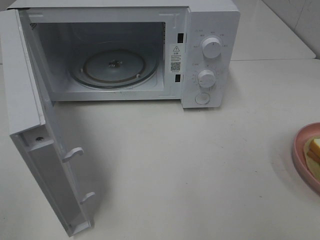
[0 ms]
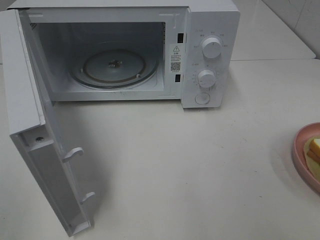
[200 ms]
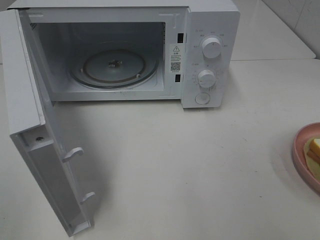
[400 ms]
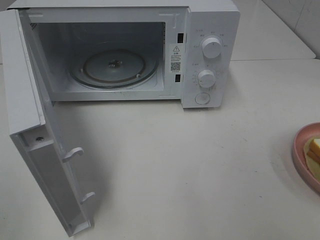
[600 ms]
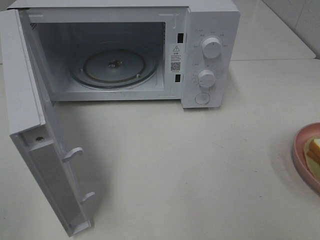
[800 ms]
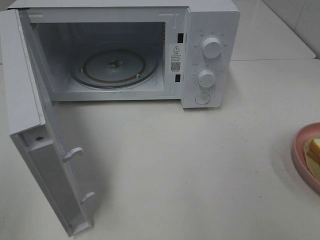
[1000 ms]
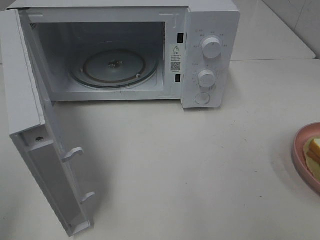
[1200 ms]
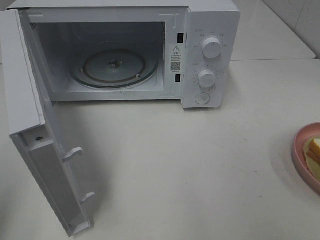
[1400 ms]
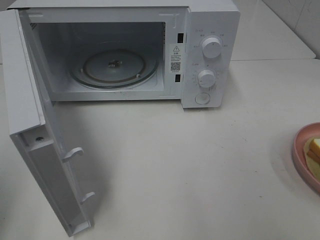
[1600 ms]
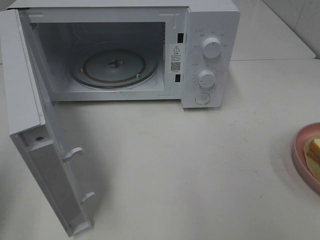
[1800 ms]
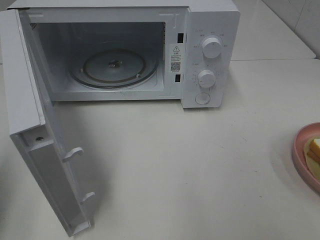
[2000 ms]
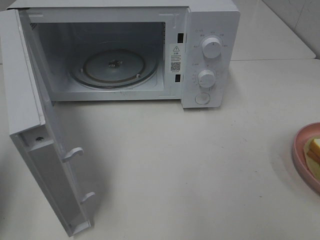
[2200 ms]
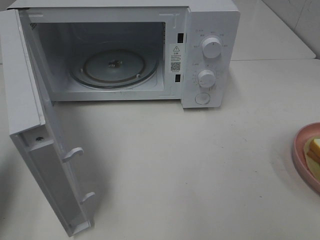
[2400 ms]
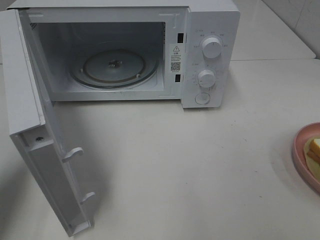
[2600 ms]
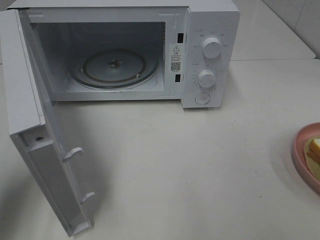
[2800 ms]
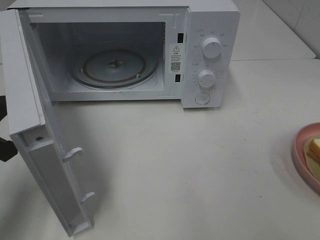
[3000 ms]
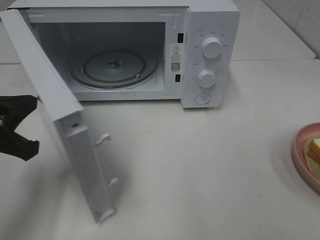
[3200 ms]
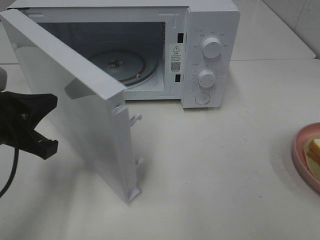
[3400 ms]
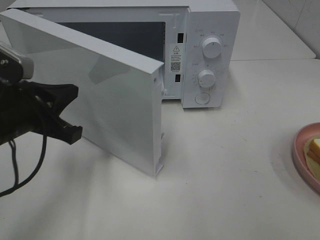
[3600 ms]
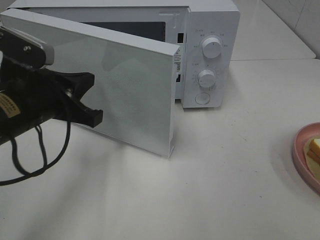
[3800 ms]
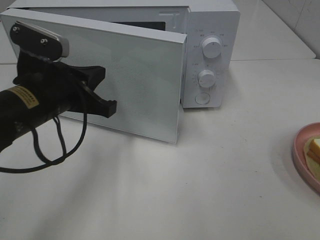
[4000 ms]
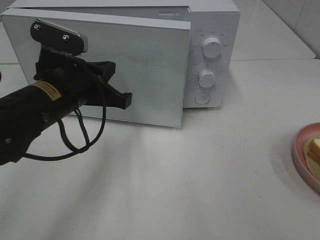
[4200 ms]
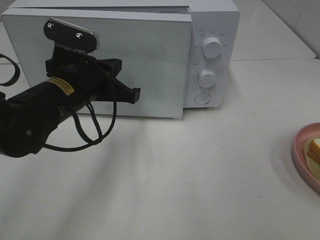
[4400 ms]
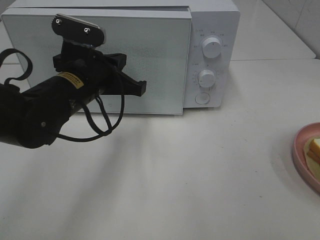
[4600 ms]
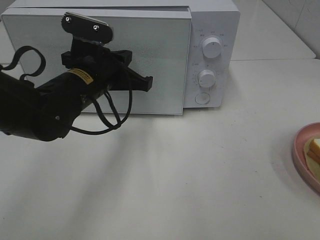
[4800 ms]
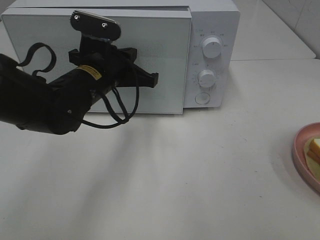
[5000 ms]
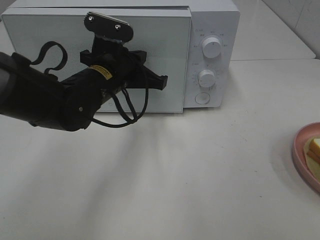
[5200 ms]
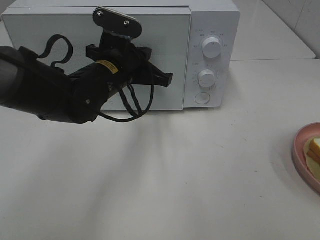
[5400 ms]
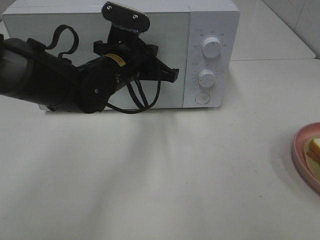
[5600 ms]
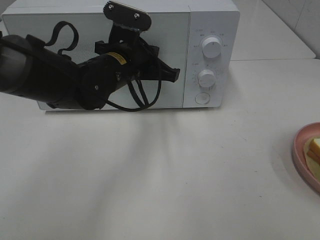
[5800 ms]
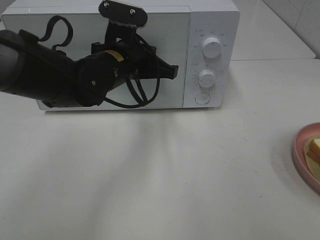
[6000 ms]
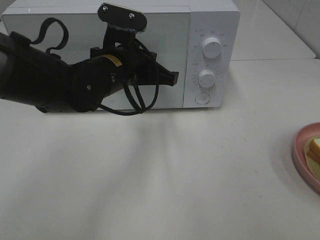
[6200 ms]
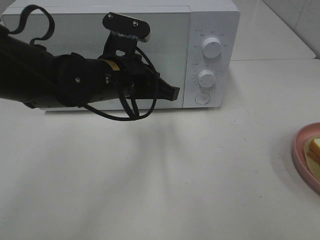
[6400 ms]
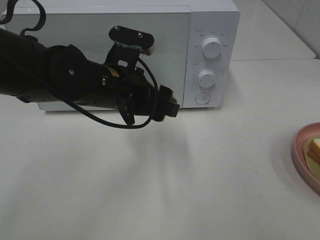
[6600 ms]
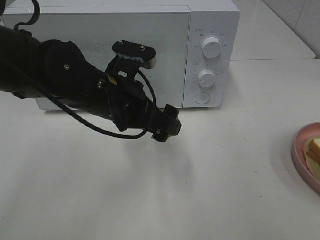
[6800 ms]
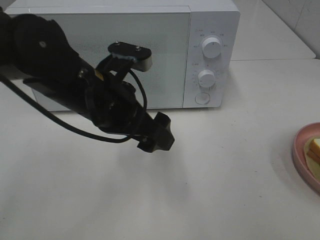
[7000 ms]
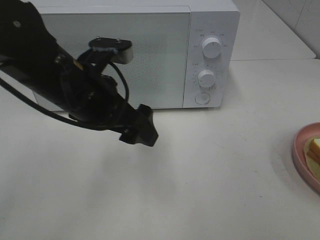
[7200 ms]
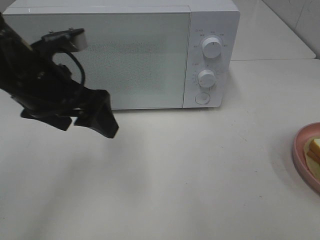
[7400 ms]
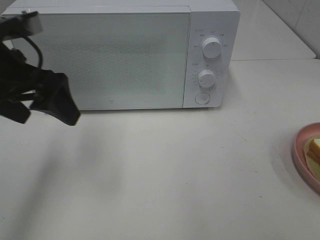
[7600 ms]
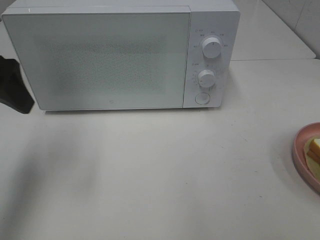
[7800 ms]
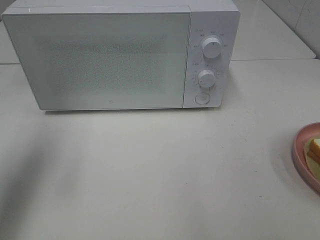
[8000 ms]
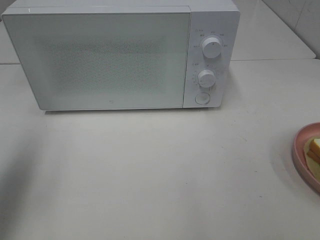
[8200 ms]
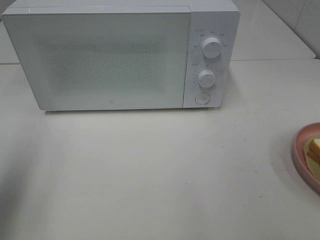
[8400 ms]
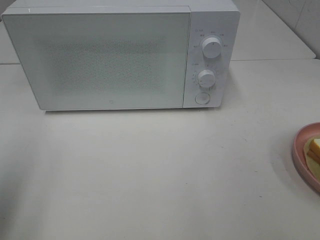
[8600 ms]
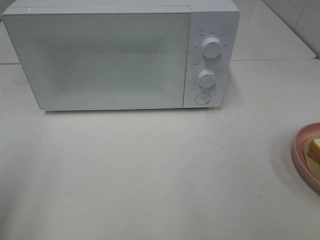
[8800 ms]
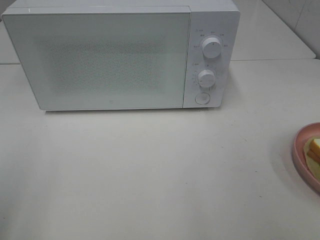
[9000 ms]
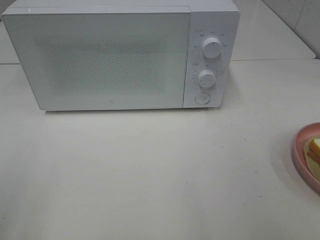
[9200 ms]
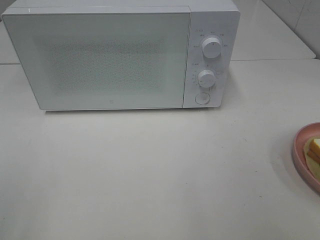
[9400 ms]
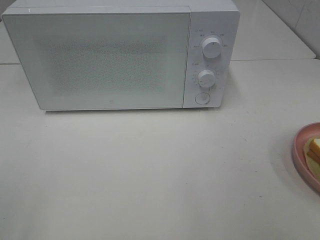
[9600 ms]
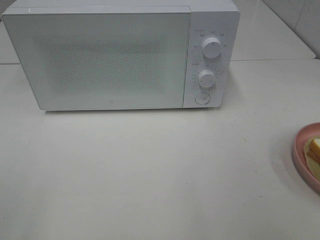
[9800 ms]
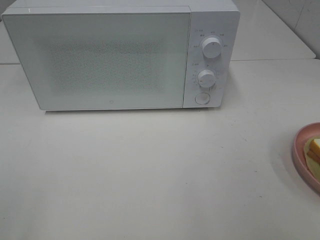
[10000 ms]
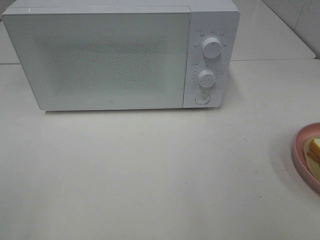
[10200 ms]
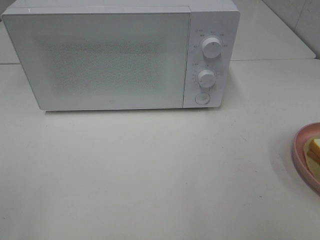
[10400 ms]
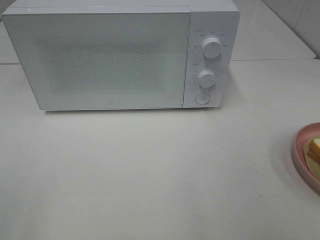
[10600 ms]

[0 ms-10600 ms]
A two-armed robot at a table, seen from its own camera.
Task of the whole recording: Heat Sandwich.
Step, 0 ms to 6600 ms: Left hand: close the microwave door.
1600 ms to 3000 ms: The left gripper shifts approximately 15 cm forward, downward and to the right.
3000 ms to 4600 ms: The left gripper is displaced to the right and forward by about 20 cm.
4600 ms to 6000 ms: The left gripper moves to the right, roughly 5 cm.
6000 ms to 7600 ms: The left gripper moves to the left, upward and backward, roughly 20 cm, and opens.
7600 ms to 9000 ms: The left gripper heads backward and to the left, covering about 20 cm.

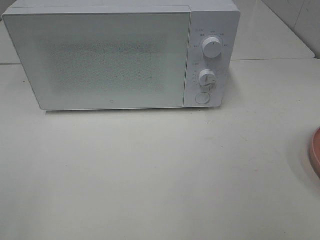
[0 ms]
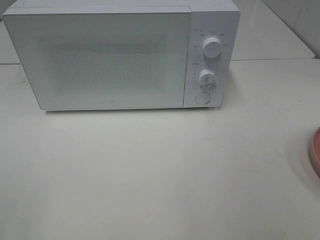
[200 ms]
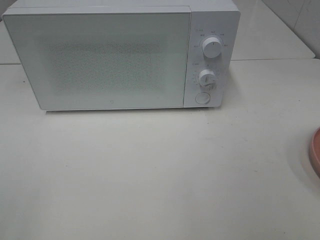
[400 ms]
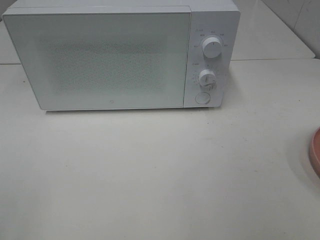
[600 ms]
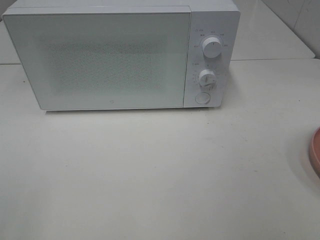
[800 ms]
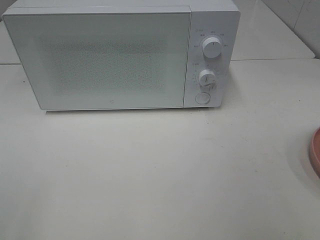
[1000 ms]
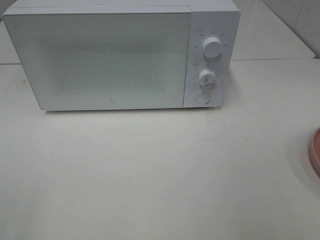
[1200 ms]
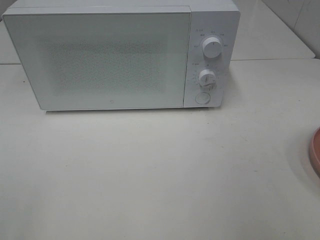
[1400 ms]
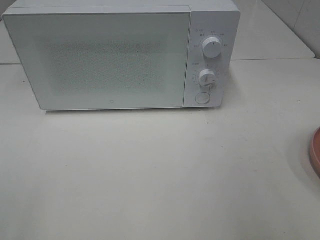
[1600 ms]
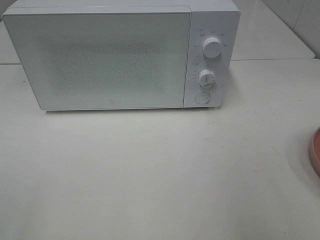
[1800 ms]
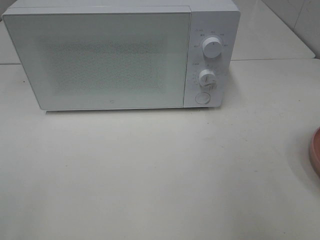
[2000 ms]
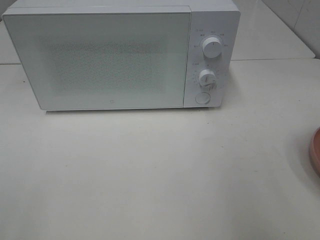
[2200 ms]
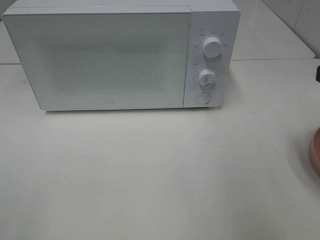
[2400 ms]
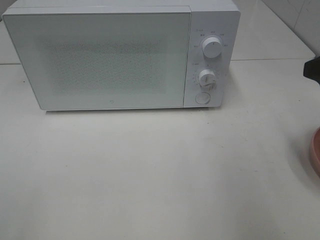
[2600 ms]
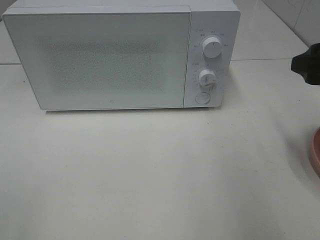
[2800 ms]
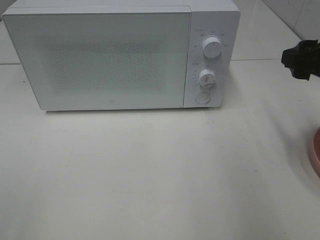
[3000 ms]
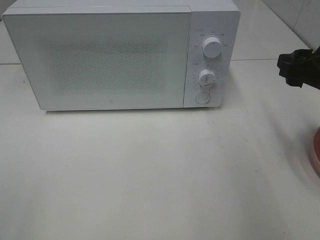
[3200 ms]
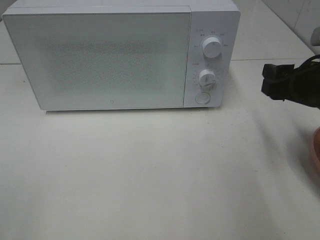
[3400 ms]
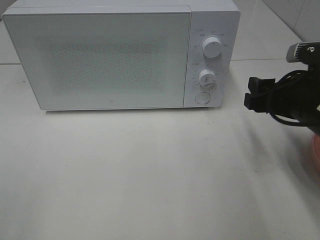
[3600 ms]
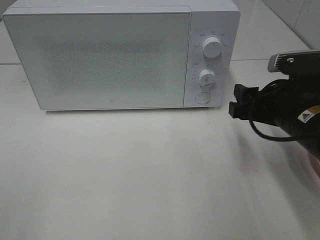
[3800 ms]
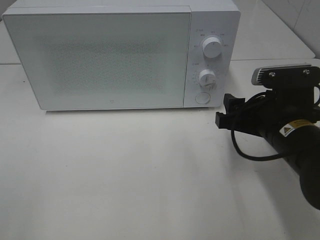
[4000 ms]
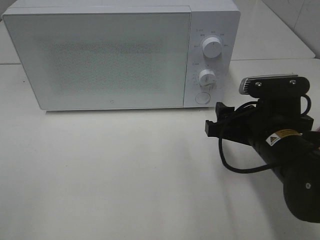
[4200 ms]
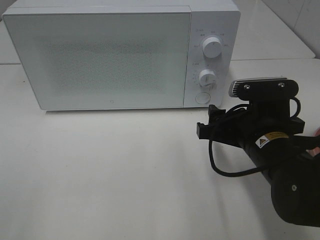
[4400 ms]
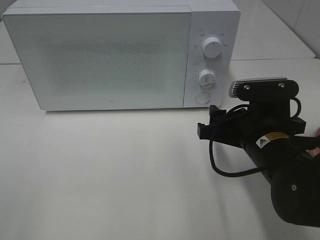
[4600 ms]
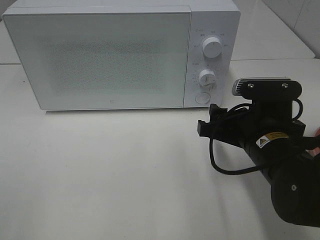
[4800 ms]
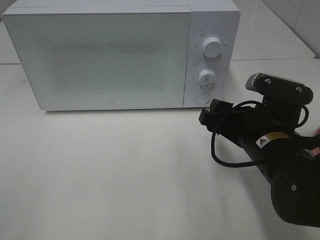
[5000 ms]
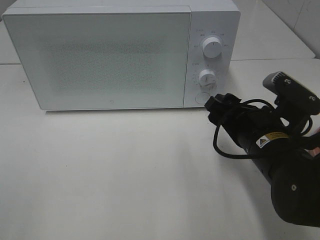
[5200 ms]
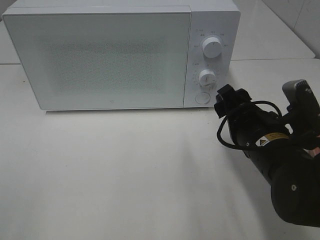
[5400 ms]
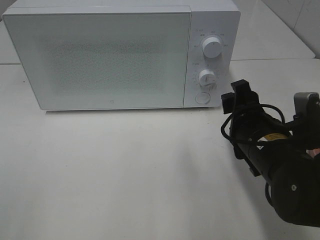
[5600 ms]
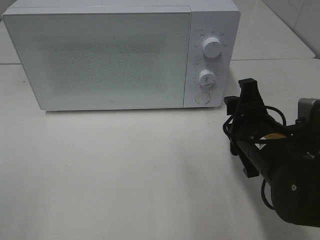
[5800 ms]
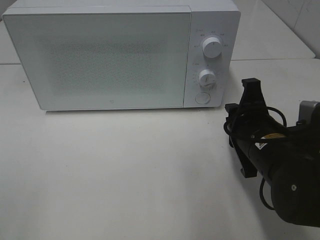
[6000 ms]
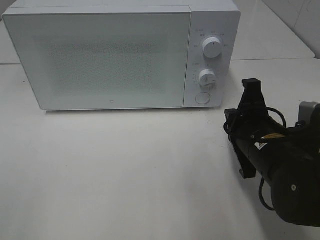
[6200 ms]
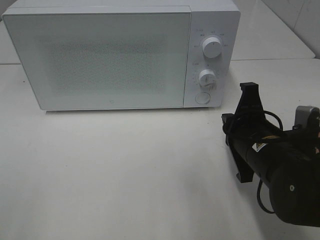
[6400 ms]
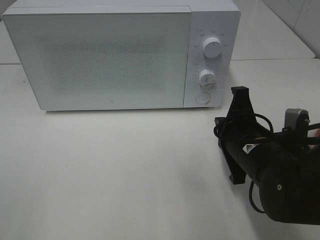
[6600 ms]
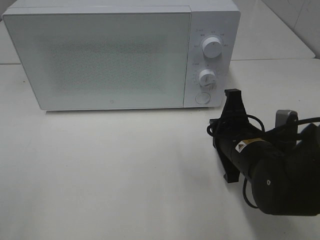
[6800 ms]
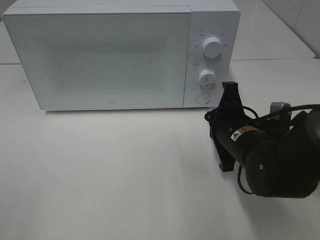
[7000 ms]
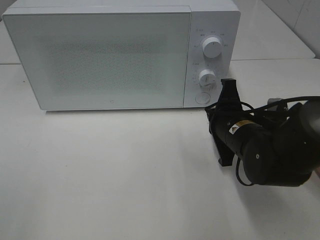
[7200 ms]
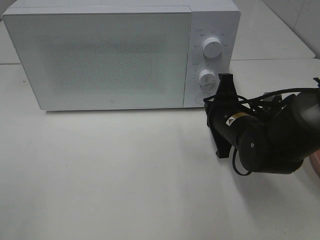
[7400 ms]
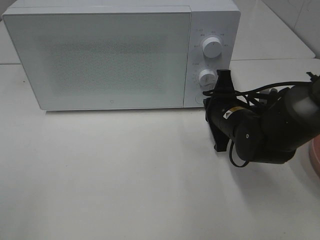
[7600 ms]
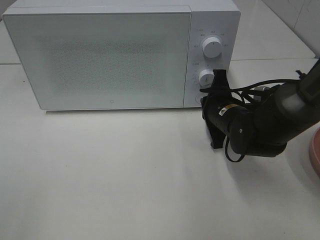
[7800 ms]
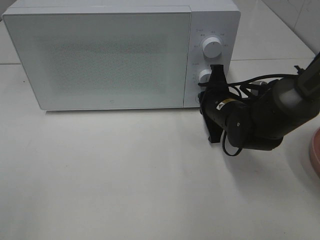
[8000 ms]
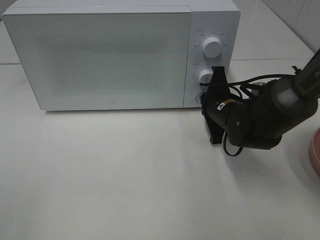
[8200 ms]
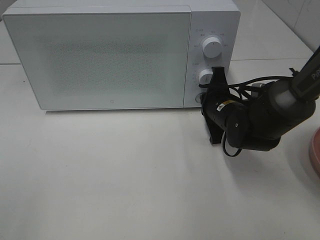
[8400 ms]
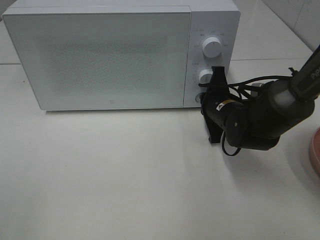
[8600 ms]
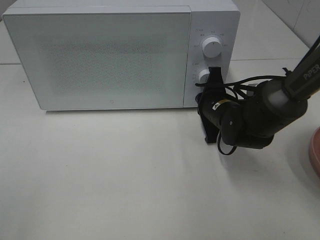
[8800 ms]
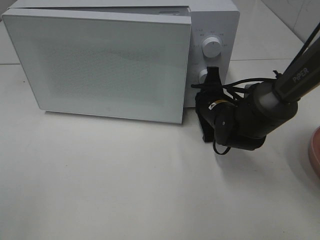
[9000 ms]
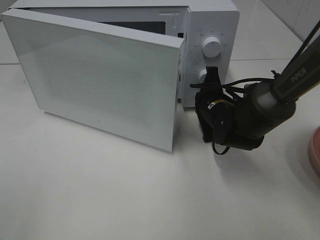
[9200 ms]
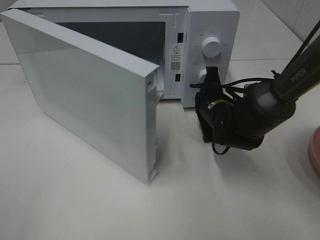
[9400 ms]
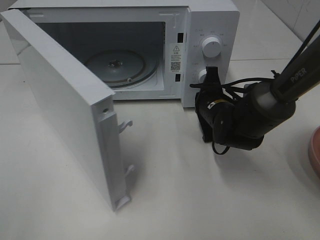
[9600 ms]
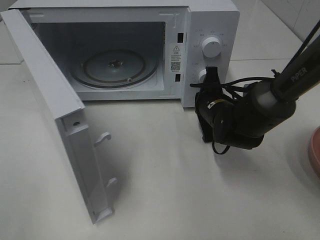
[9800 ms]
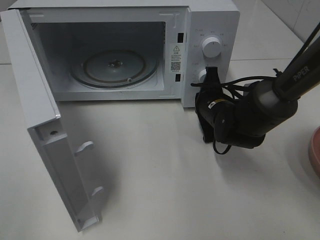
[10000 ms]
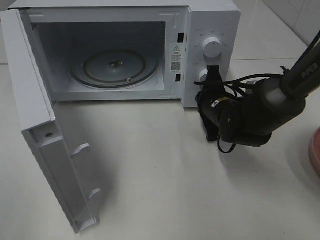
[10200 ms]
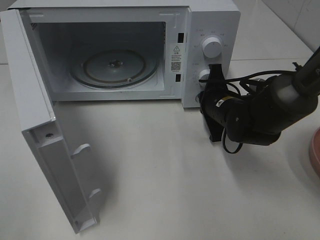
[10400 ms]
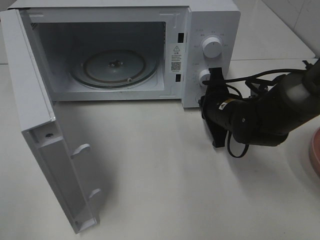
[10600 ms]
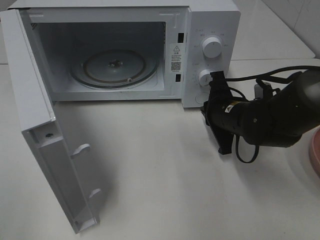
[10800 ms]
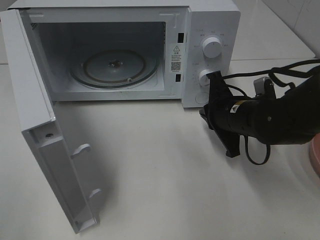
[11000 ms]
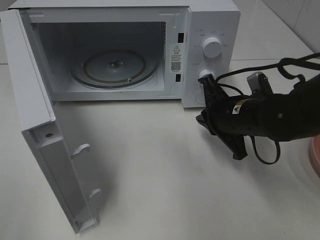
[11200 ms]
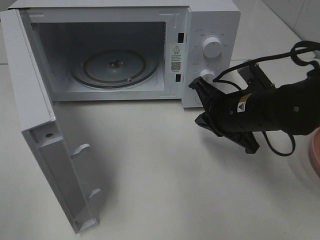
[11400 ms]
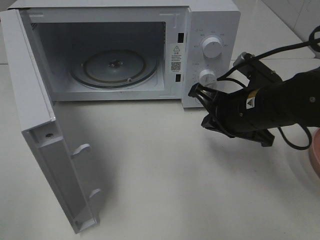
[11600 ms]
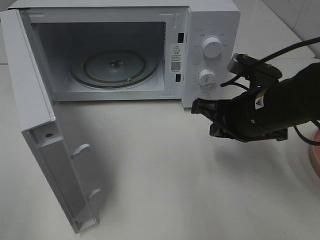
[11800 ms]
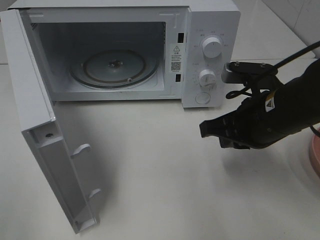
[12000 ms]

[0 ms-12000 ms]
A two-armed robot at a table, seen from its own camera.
Task of the whole recording: Heat Sandwich.
Step, 0 ms to 10600 ms: Right hand: press the switch.
1600 ms to 3000 ms: The right gripper goes approximately 15 cm forward.
3000 ms to 4400 ms: The right gripper is displaced to the left and downward by about 15 cm.
4400 ms to 6000 ms: The right gripper closes.
6000 ms to 7600 ms: The right gripper shifts roughly 10 cm forward.
7600 ms to 9000 ms: The right gripper shifts by approximately 5 cm.
10400 ms to 12000 ms: The right gripper is displaced backward and upward by about 15 cm.
